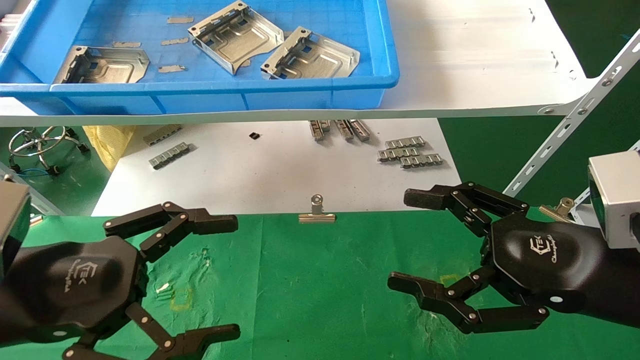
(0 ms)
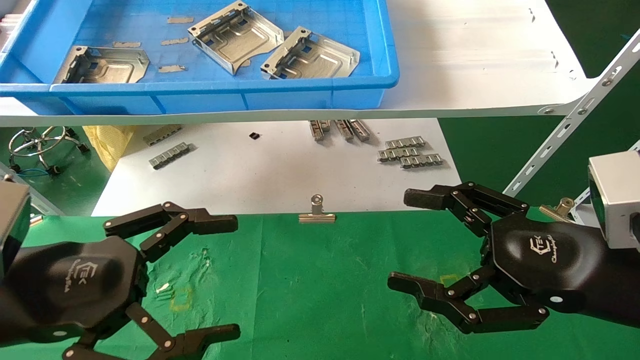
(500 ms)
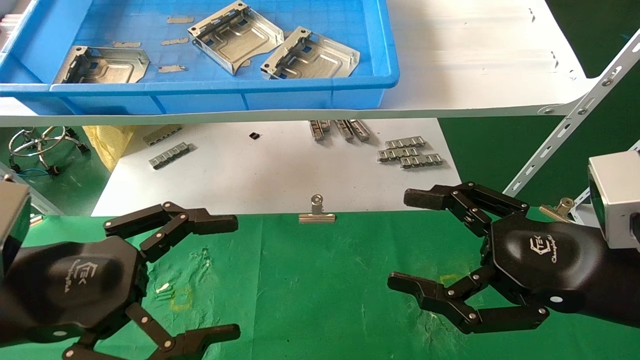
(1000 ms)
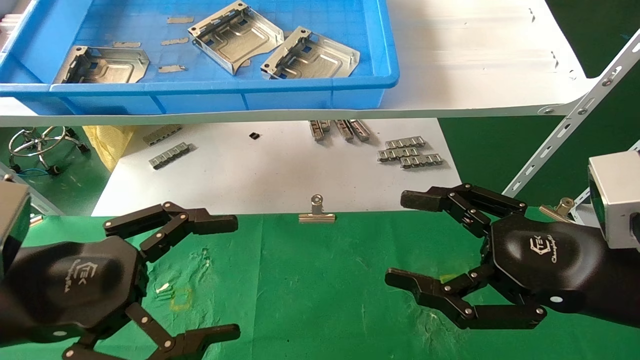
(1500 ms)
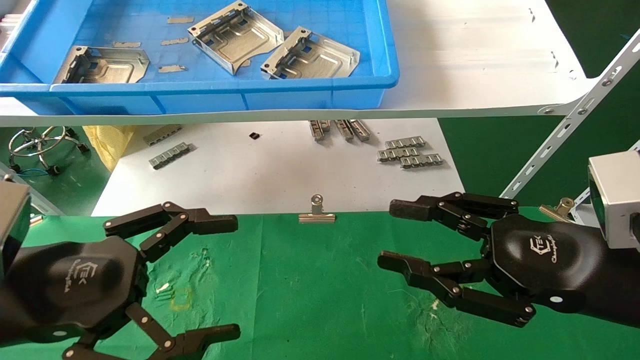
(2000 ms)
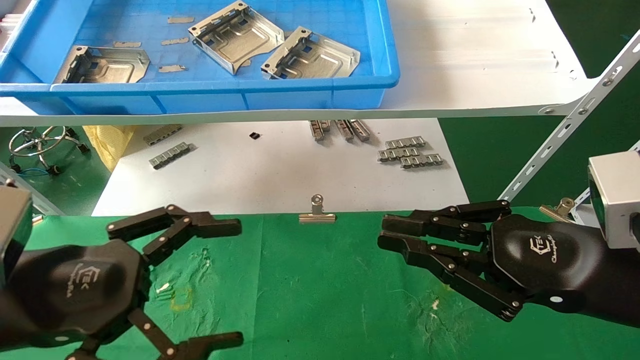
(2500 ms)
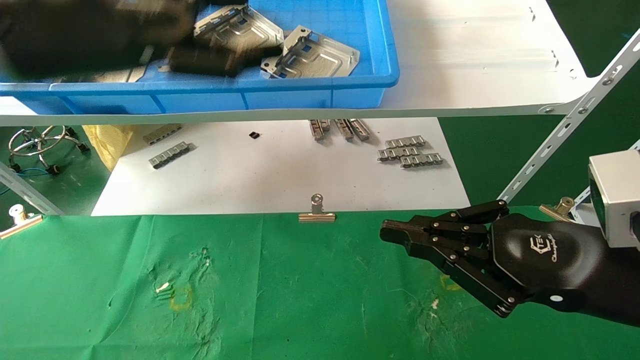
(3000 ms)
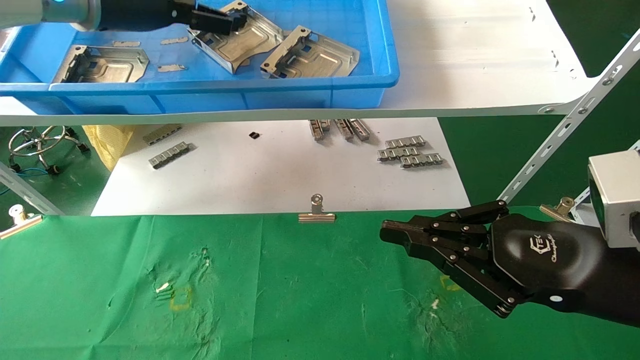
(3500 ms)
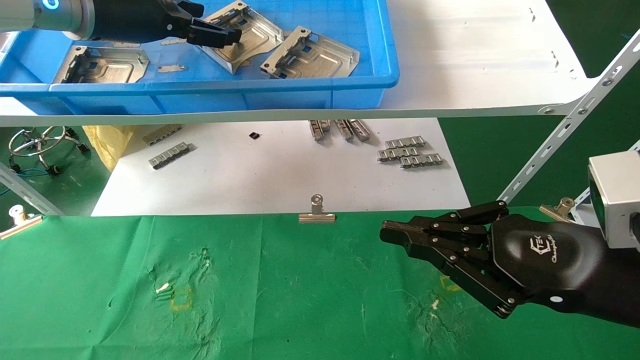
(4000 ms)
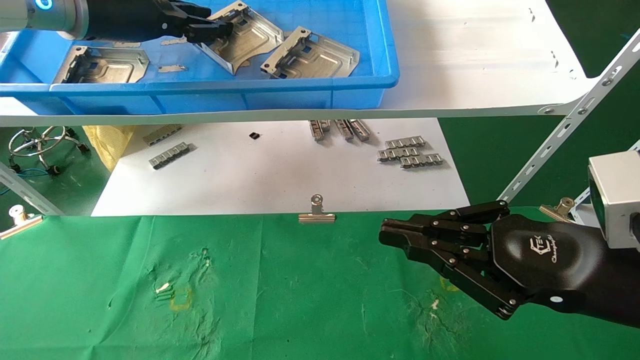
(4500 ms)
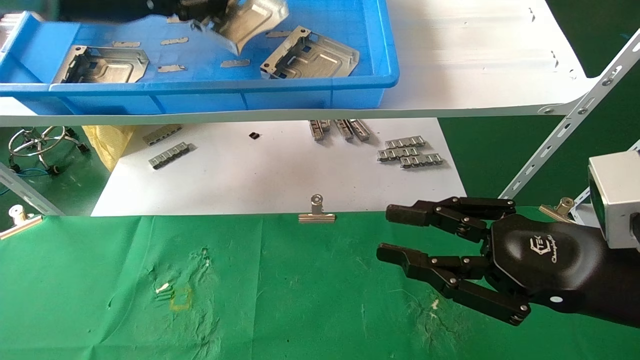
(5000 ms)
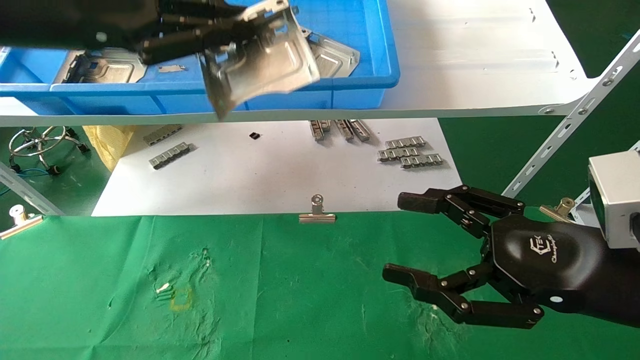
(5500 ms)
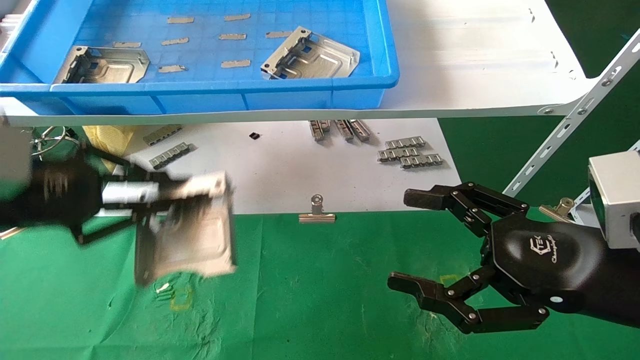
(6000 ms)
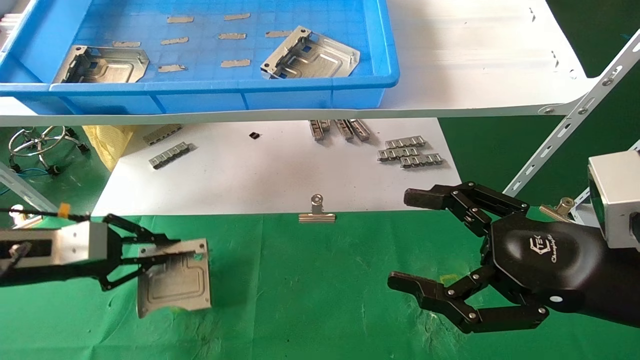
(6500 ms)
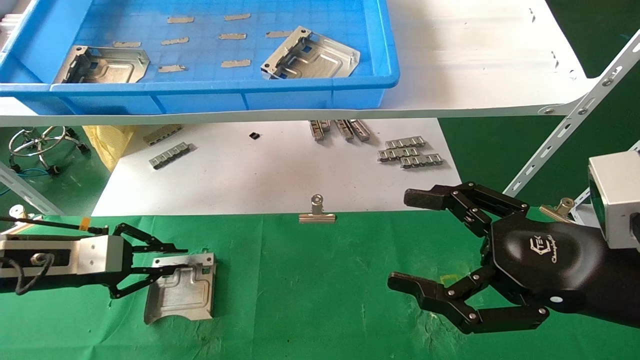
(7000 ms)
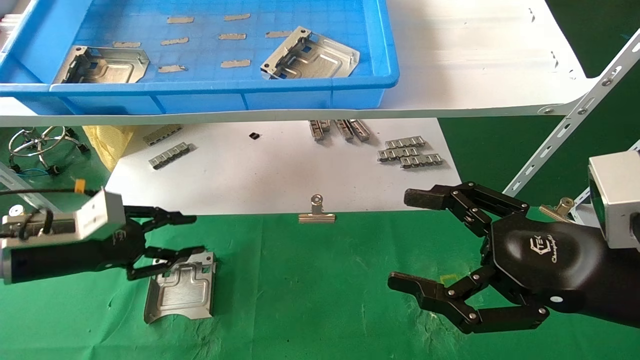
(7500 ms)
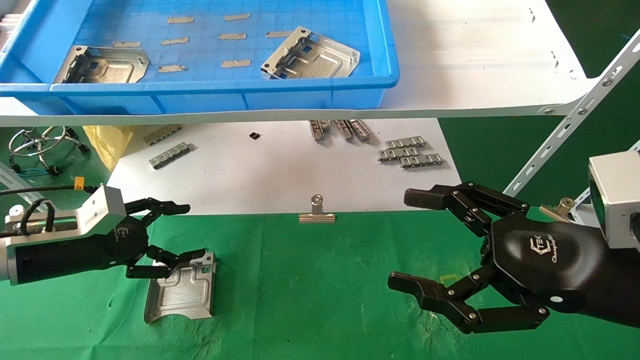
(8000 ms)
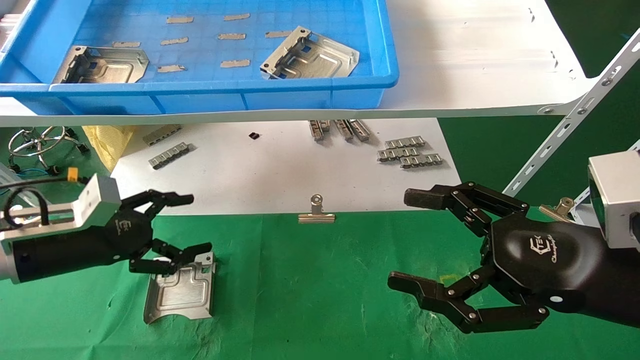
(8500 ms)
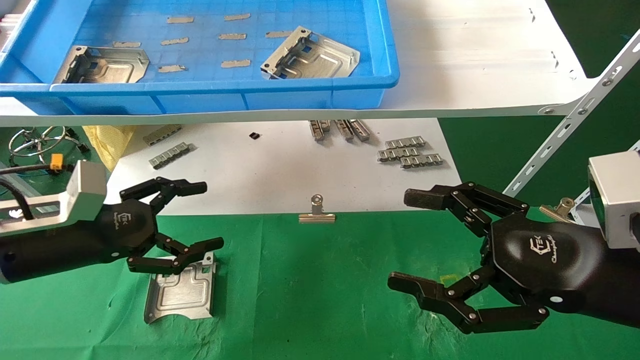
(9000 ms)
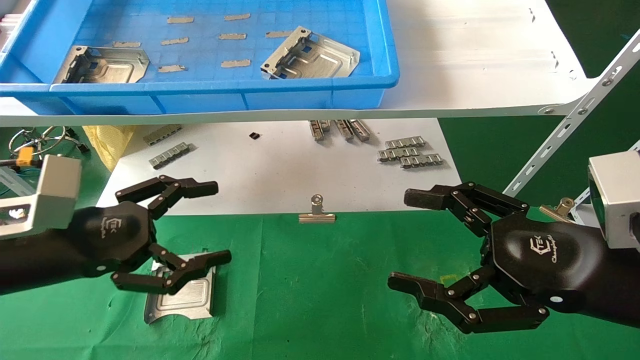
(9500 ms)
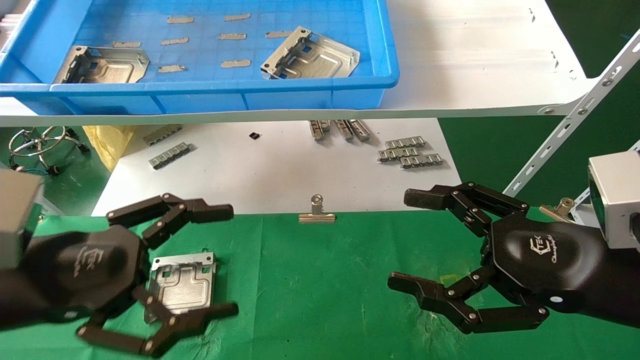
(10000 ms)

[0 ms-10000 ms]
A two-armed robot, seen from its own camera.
Task of the whole recording: use the mechanical arm to pick up the parts and place them on the table.
Step, 3000 ms to 4500 ms: Pick up the hard drive bracket from the feeding area.
Step, 5000 ms to 7000 ms: Place the hard drive bracket into the box.
0 ms to 2000 ms: The right gripper closes up.
2000 ms to 4000 ms: The left gripper shifts about 30 cm upward and forward. The right gripper closes up.
4000 ms to 6000 ms: The right gripper opens; the left gripper goes some 25 cm downward, backward and to the left, and closes its fingers.
6000 ms to 8000 ms: The left gripper travels downward and forward by about 15 cm, and opens its fingers.
8000 ms to 10000 ms: The left gripper goes roughly 20 cm backward, to the right and upward.

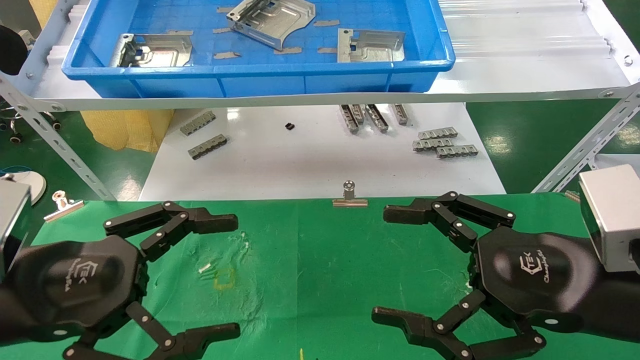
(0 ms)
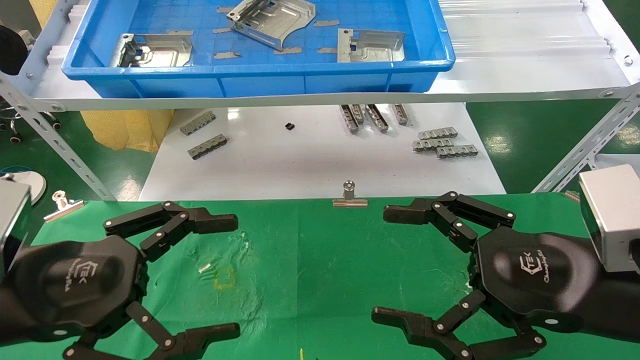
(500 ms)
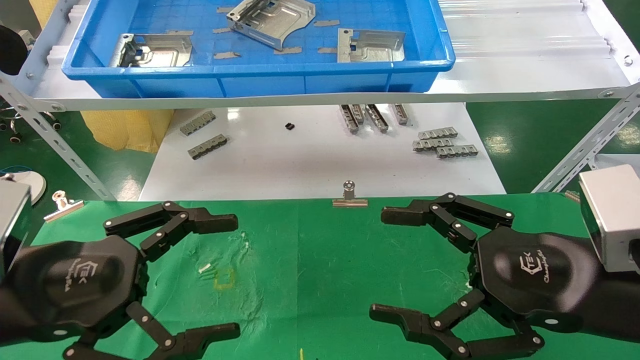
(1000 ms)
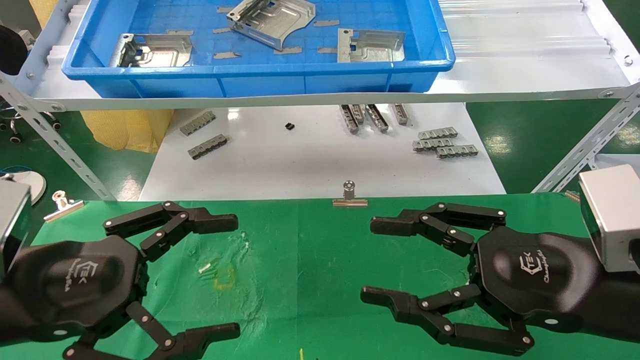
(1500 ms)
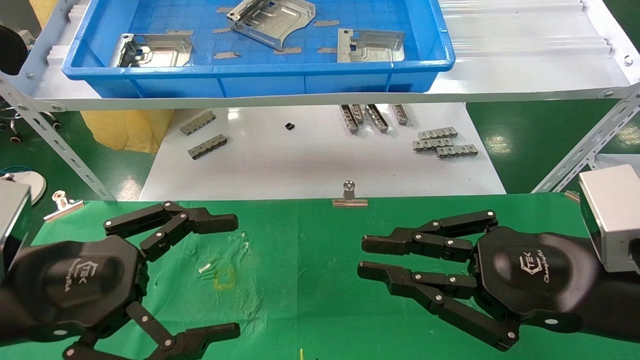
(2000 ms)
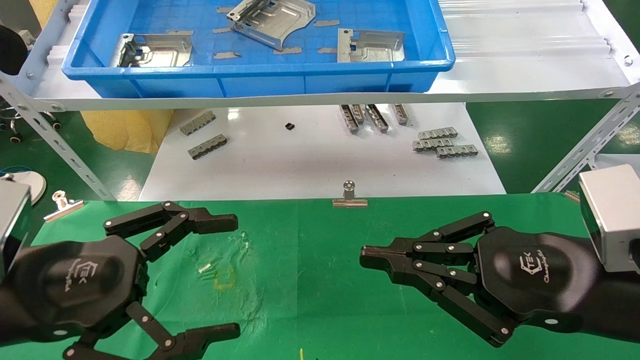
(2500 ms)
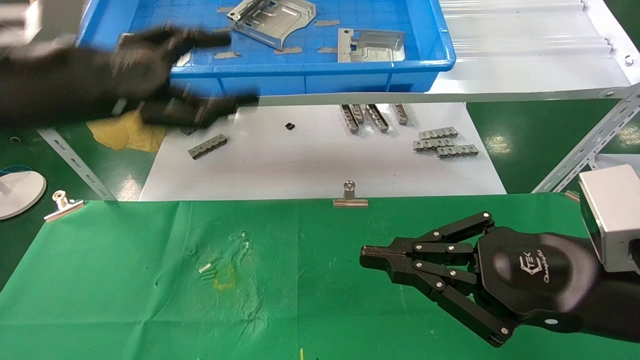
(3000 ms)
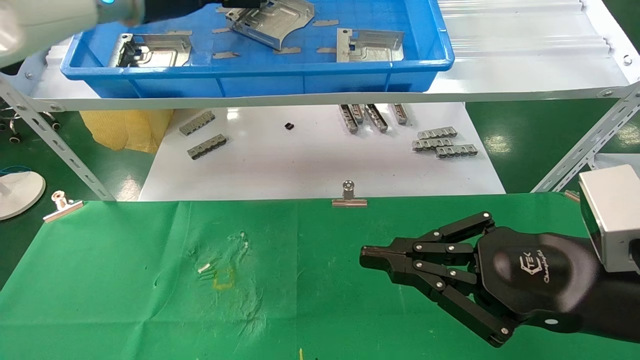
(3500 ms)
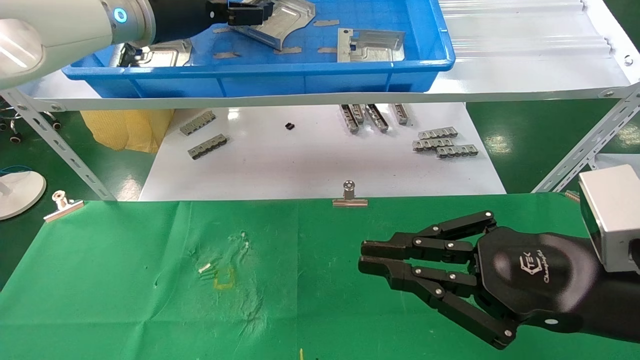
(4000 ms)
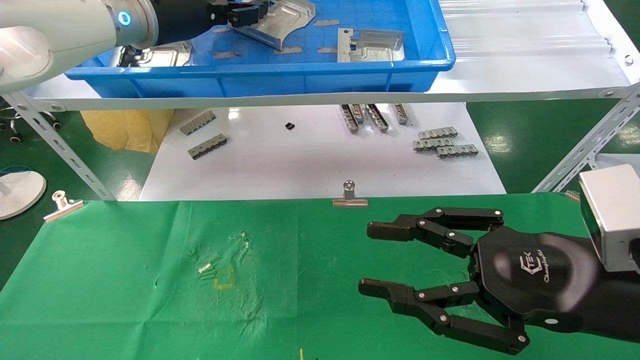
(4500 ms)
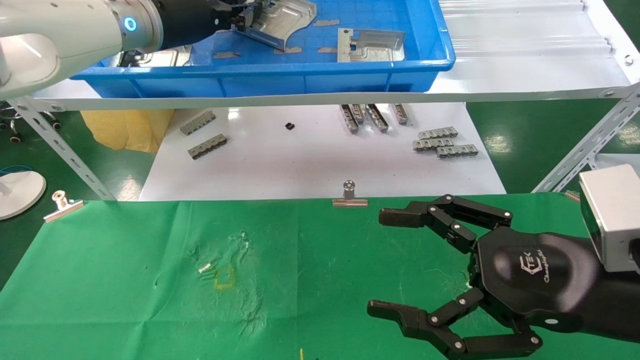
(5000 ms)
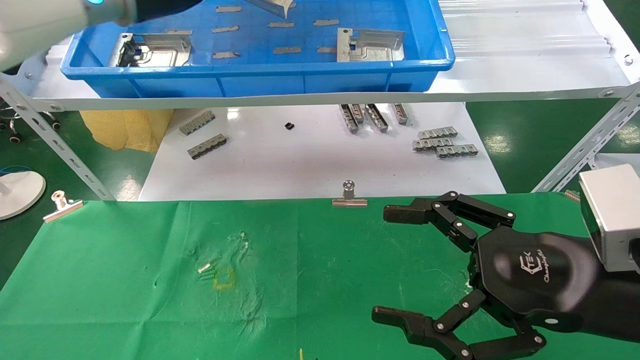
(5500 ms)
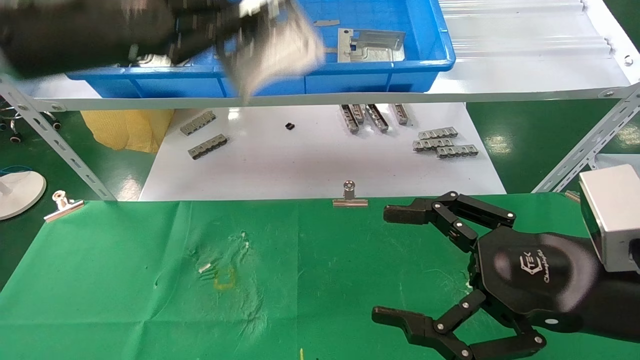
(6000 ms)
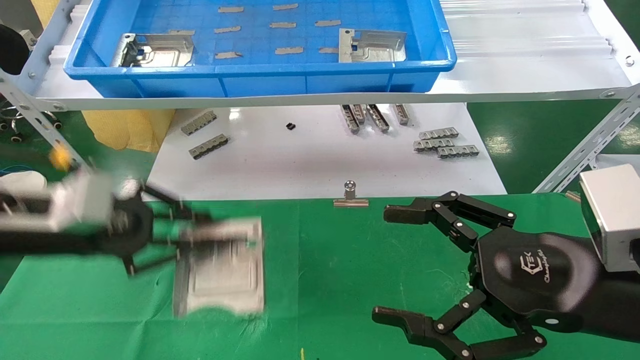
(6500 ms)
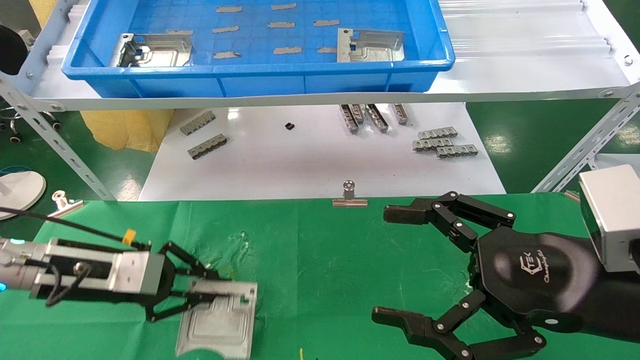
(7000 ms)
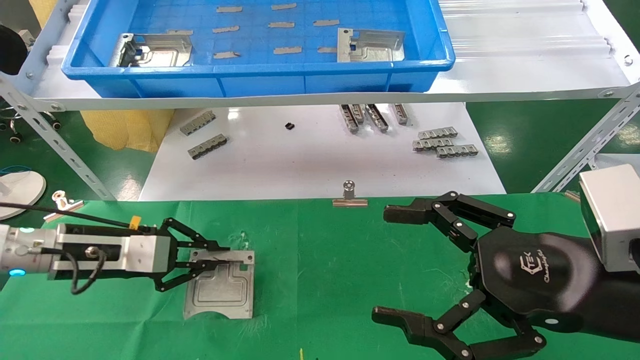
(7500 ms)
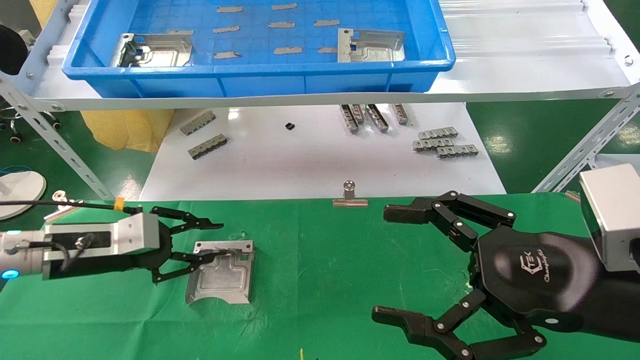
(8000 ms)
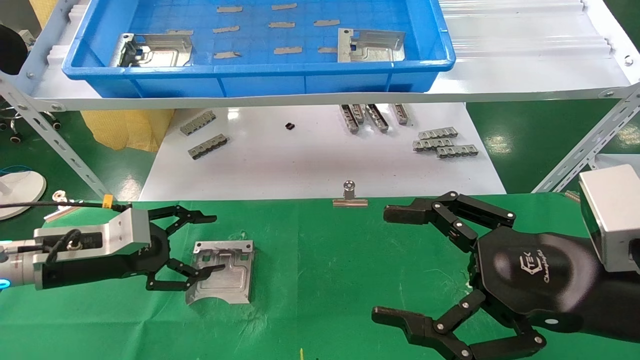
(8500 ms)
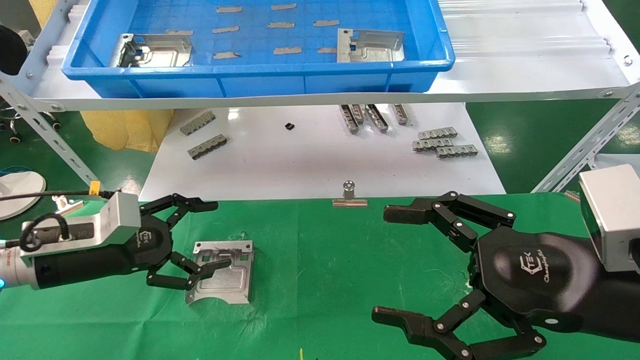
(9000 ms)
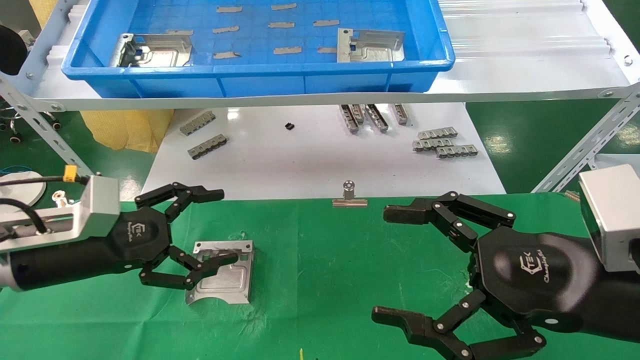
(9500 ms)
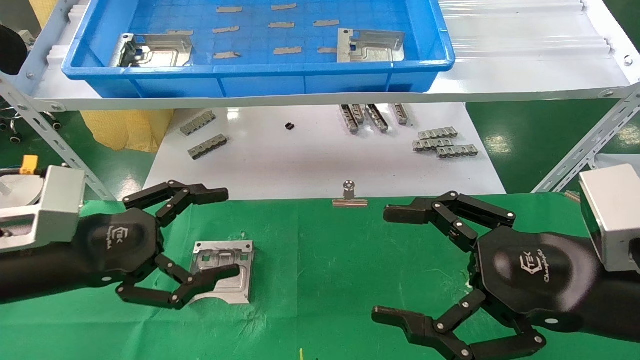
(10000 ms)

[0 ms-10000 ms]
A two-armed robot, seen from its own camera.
Task of the whole recording: use the mechanical arm to pick up the parts and place them on the table.
Step, 3000 ms to 4500 ms: Pick up the hard drive bracket from the feeding area.
Step, 5000 ms to 8000 ms: Place the hard drive bracket into the box.
0 ms to 2000 ms: The right gripper closes its fingers.
2000 ms to 4000 ms: The left gripper shifts approximately 35 cm forward and upward.
4000 ms to 6000 ms: The right gripper opens up; the left gripper shifts roughly 15 cm backward, to the left and downward, and closes its fingers.
6000 ms to 8000 ms: The left gripper goes about 25 cm downward.
8000 ms to 10000 ms: The left gripper is displaced backward by approximately 10 cm, and opens up.
